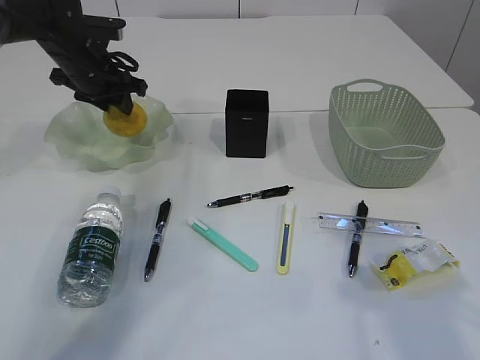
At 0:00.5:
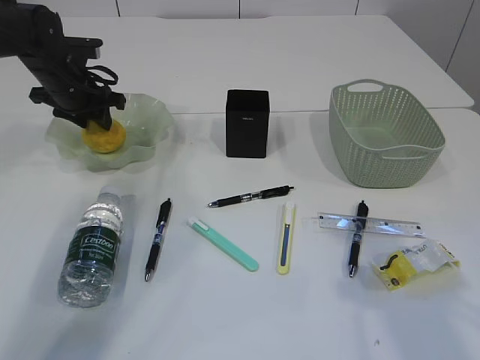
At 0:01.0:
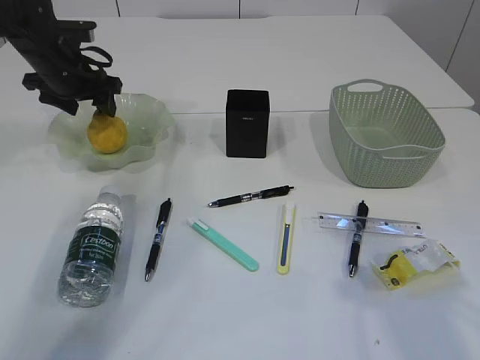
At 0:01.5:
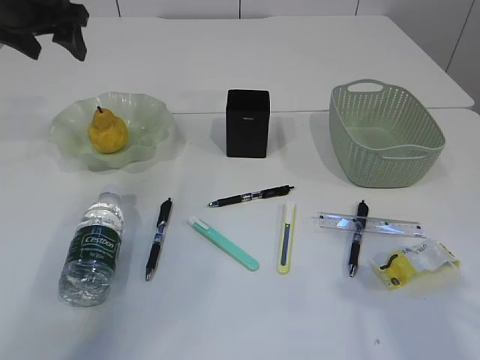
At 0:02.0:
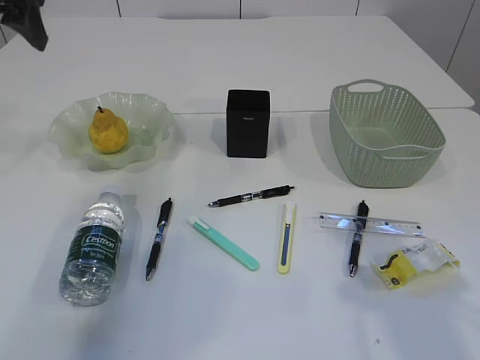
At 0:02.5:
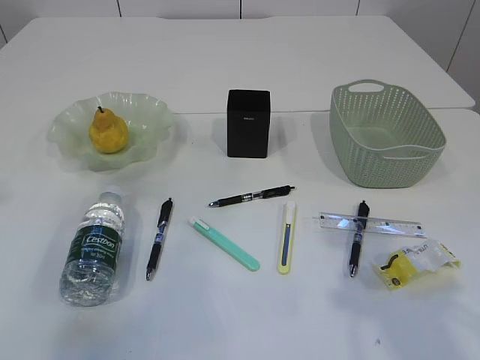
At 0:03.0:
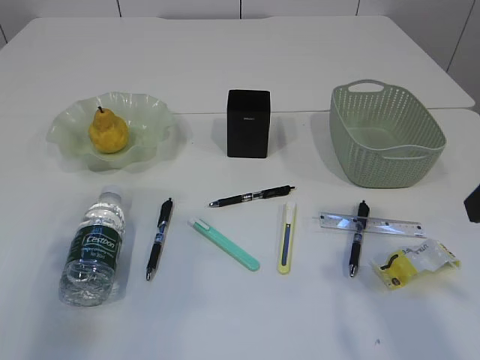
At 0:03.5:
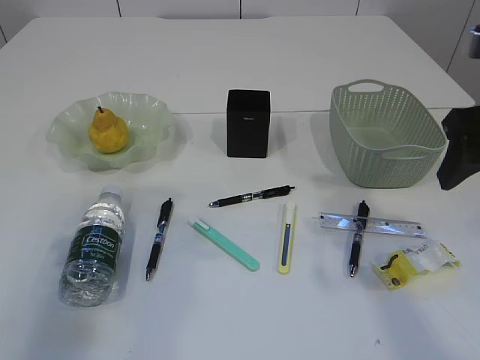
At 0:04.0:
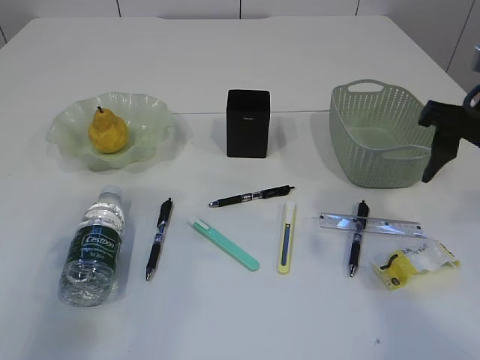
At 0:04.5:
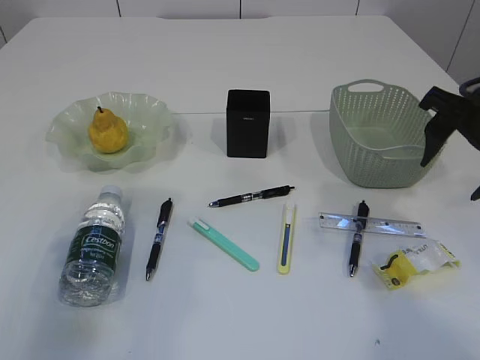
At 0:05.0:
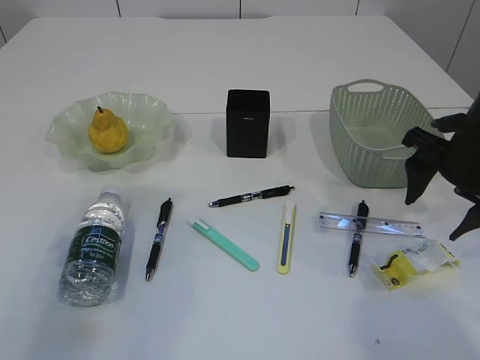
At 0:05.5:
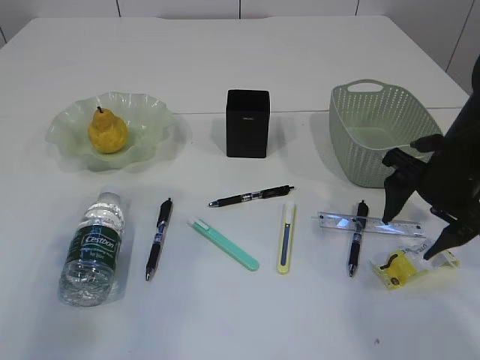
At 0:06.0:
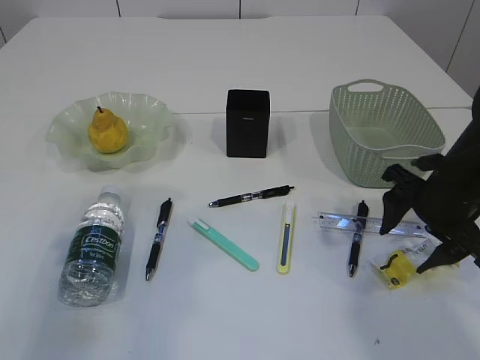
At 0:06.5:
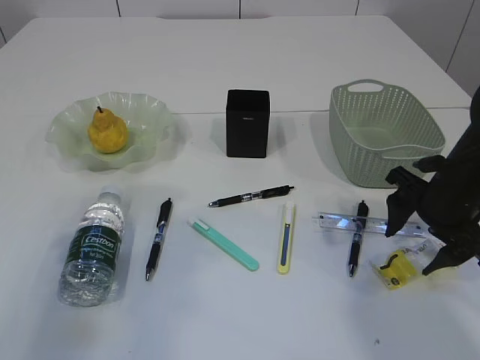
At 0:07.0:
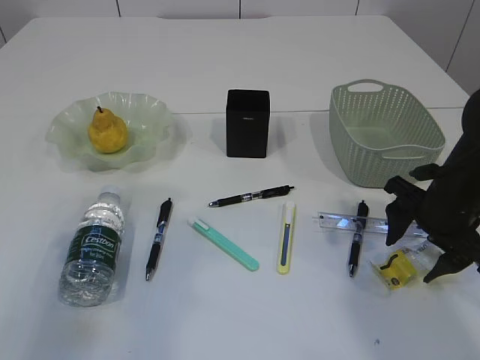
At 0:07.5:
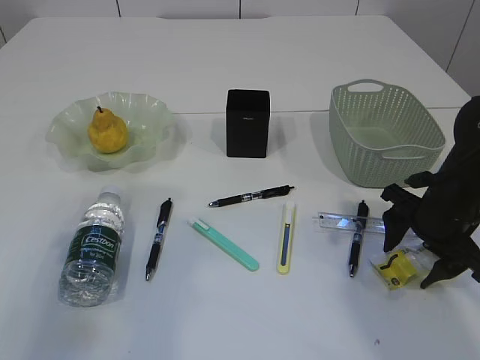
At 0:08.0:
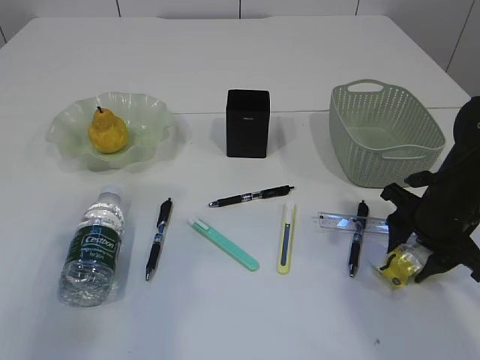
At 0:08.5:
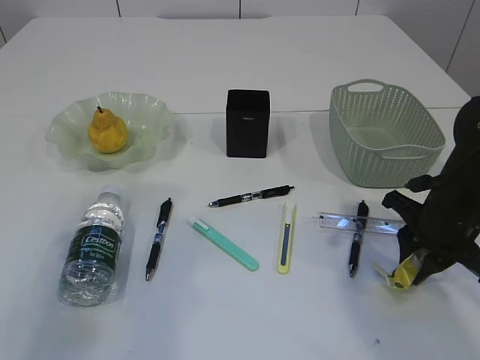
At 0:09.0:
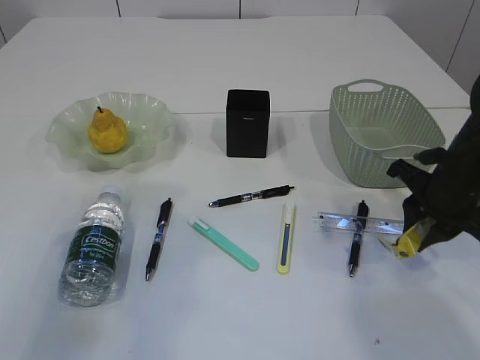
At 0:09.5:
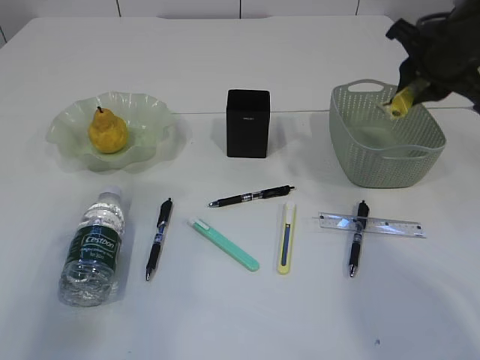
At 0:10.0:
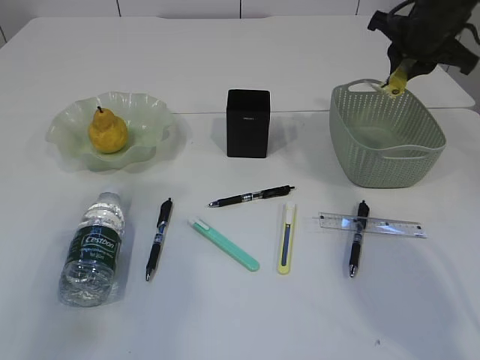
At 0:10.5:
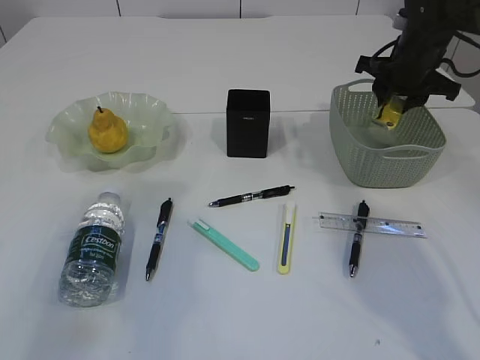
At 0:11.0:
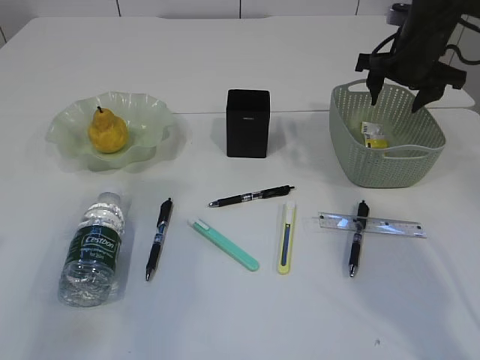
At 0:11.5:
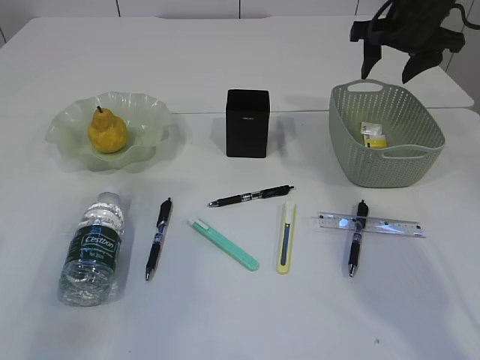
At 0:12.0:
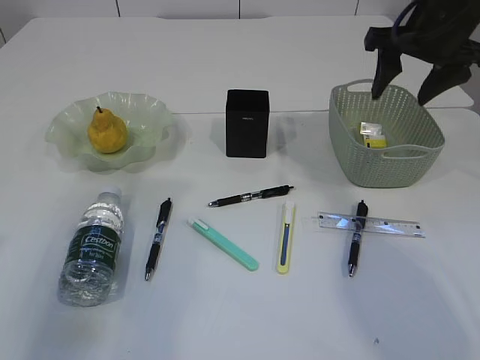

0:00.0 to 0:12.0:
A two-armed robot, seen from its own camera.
Step, 0:01.5 to 0:09.0: Pick up the waste paper.
0:00.0 to 0:02.0: The left gripper heads upward and backward, covering roughly 20 cm, and opens its fingers.
0:02.0 to 0:04.0: The left gripper moves backward and downward, approximately 20 cm; the right gripper moves forward, some 15 cm.
0:04.0 to 0:06.0: The right gripper is displaced downward by roughly 10 cm.
0:06.0 to 0:08.0: There are only small adjustments of the grippers.
0:08.0 to 0:10.0: The right gripper travels forward and upward by approximately 20 cm, and closes up.
0:10.0 to 0:12.0: The right gripper is displaced backward by roughly 5 cm, travels downward and back again, some 5 cm each way, and opens.

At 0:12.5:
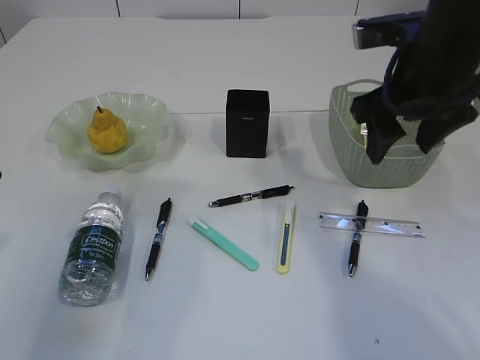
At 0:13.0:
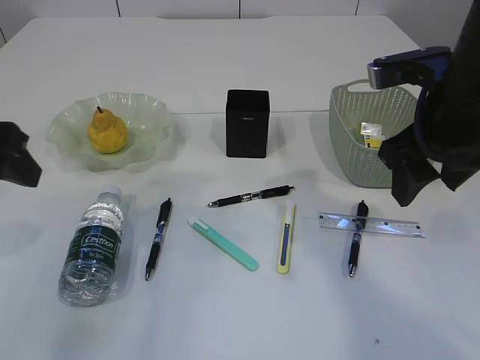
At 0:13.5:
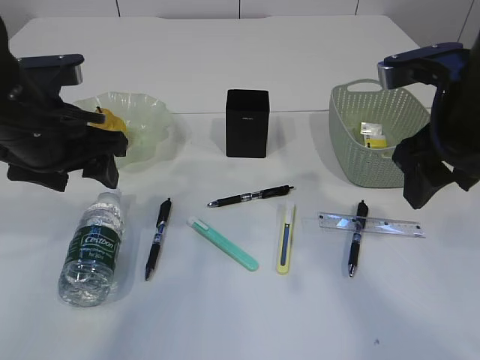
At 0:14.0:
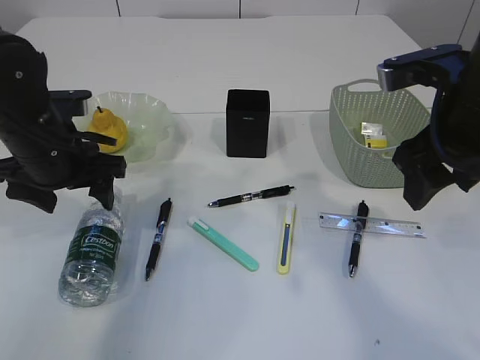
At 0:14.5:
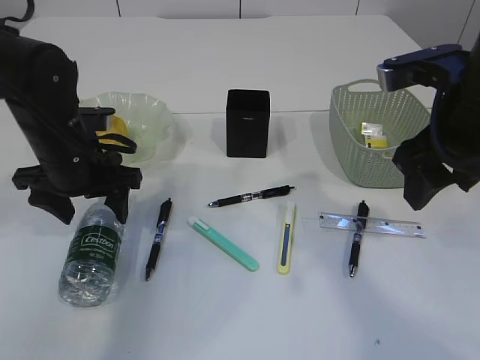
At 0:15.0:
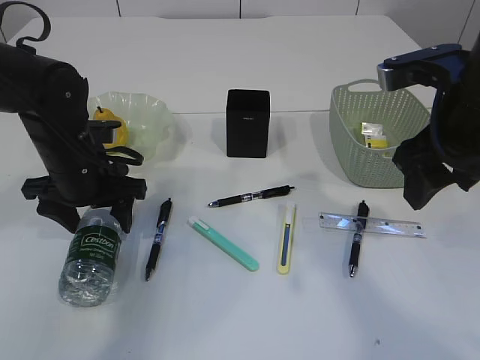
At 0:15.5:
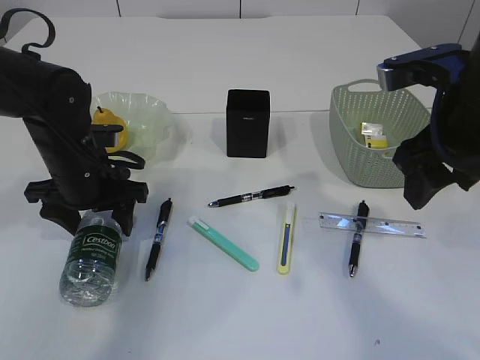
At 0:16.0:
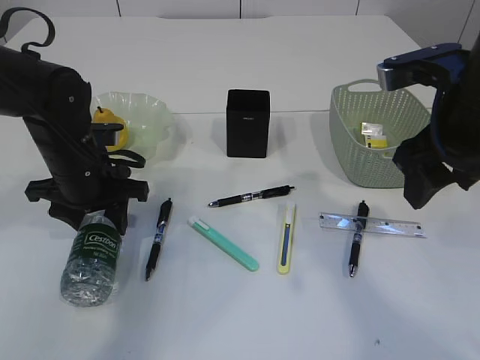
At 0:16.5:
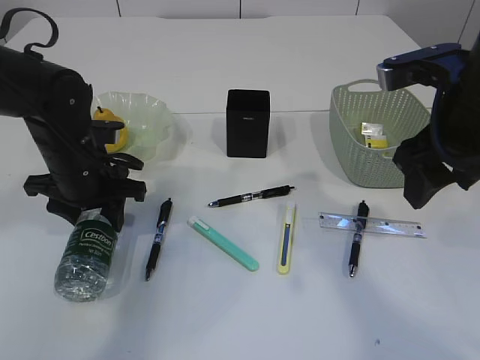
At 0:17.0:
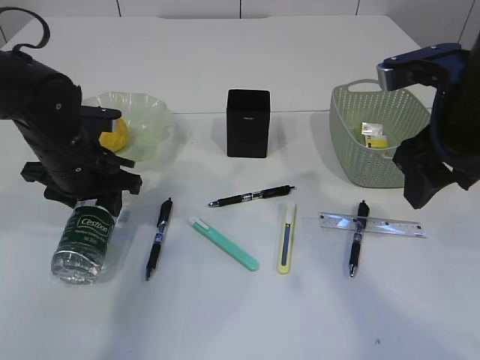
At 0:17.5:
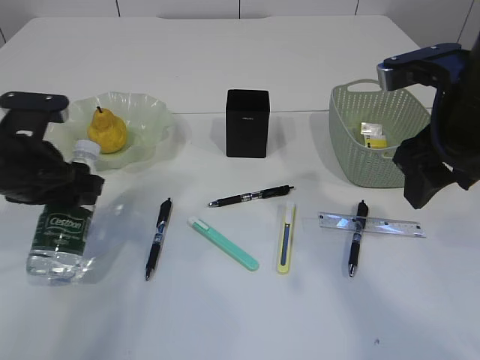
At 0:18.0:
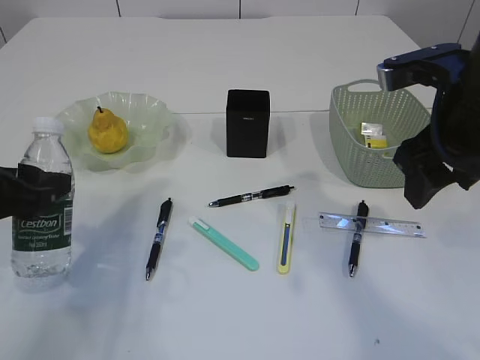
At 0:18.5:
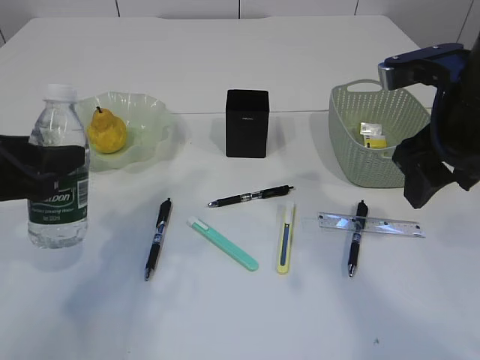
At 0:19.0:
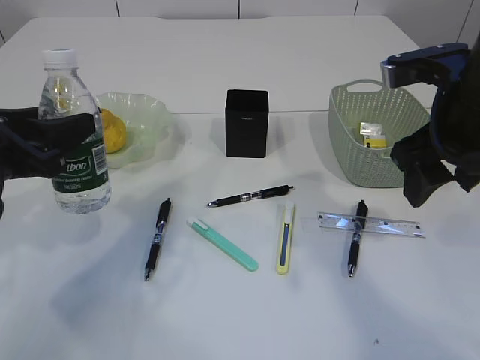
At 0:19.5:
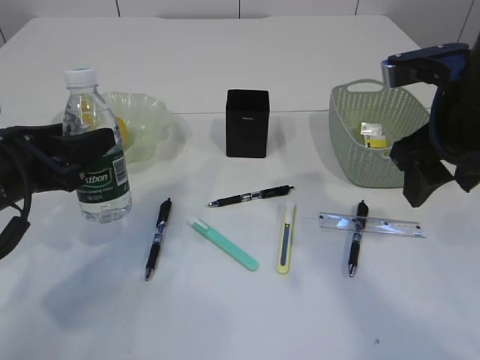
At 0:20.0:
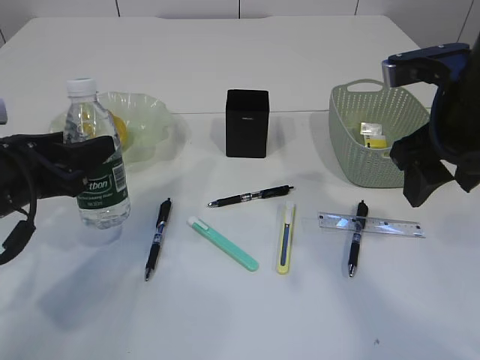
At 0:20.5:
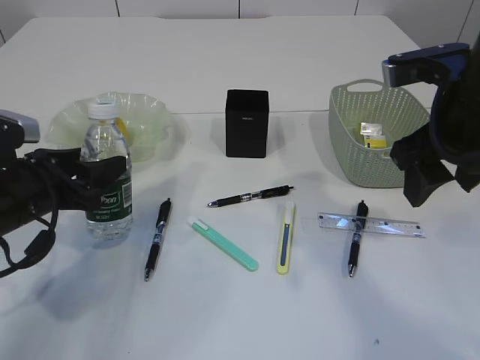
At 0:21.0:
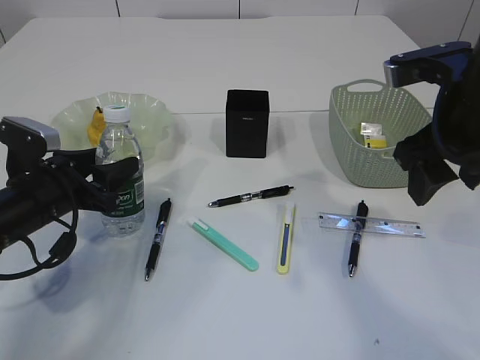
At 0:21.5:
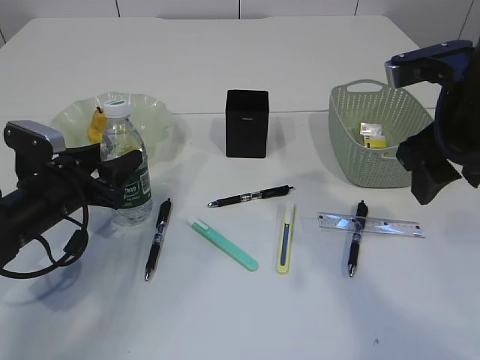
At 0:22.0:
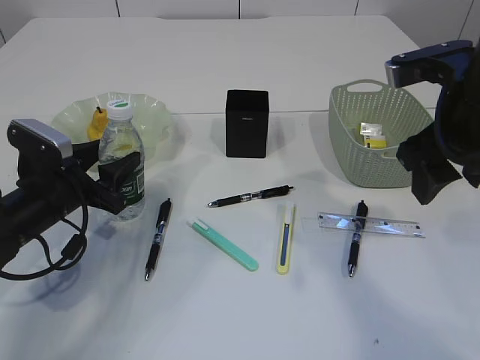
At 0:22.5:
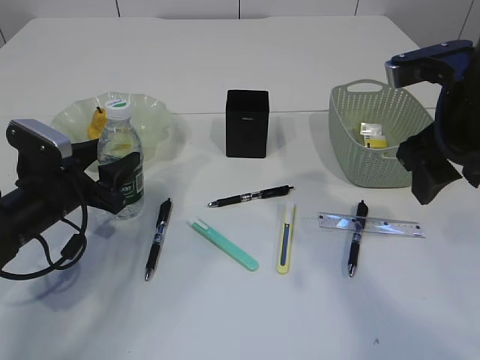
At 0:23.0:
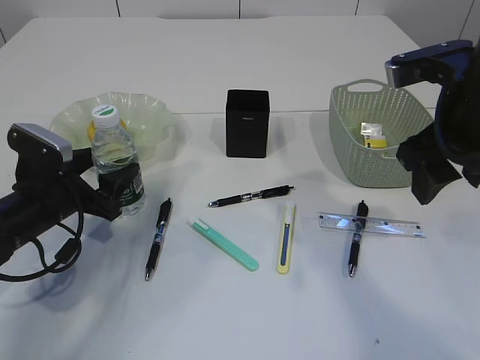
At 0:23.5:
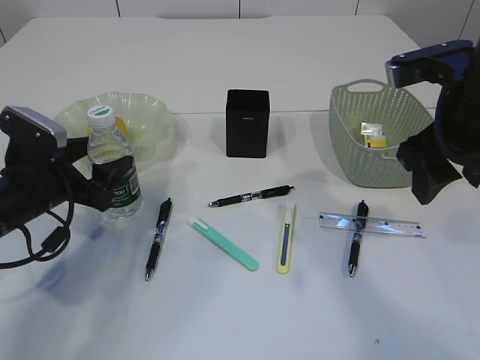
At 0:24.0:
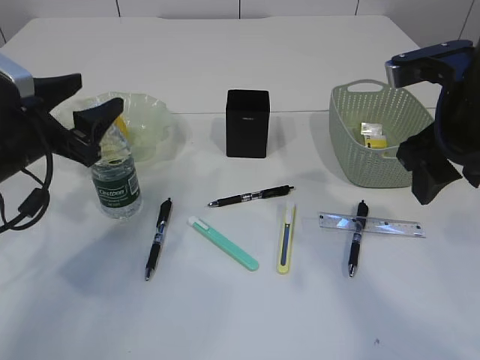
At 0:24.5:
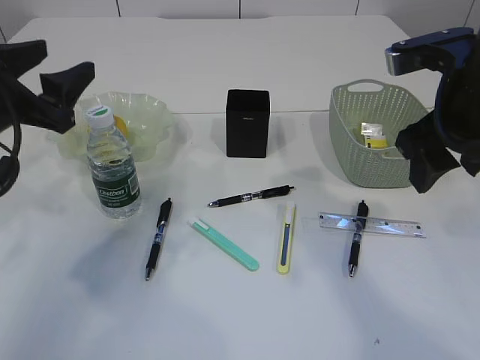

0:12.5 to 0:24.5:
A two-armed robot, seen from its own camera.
Step, 0:12.5 to 0:18.0: Pick up the bottle with the left arm.
Step, 0:18.5 to 0:24.5: Place the bottle.
0:12.5 to 0:14.5: The right gripper is displaced backward by roughly 5 cm. Meanwhile the left gripper is displaced downward, forward and to the right by roughly 20 cm.
0:14.5 to 0:16.5: The left gripper closes.
0:16.5 to 0:18.5: The left gripper shifts about 15 cm backward, upward and to the left.
0:18.5 to 0:20.5: The left gripper is displaced downward by some 5 cm.
0:20.5 to 0:22.5: The left gripper moves about 5 cm.
0:22.5 to 0:24.5: The left gripper heads upward, covering roughly 15 cm.

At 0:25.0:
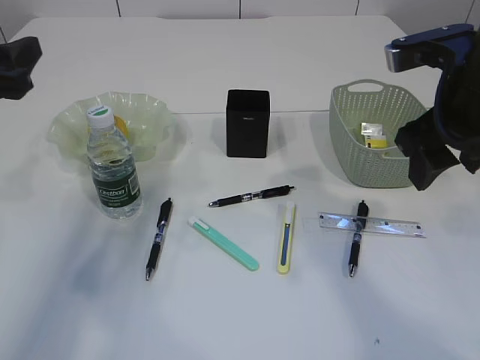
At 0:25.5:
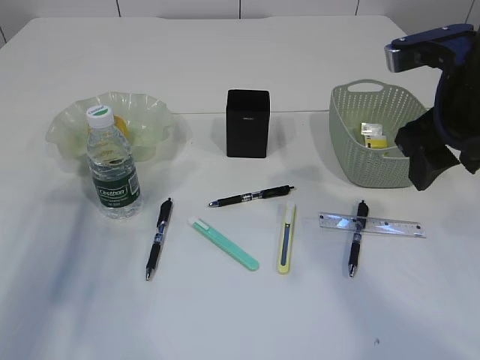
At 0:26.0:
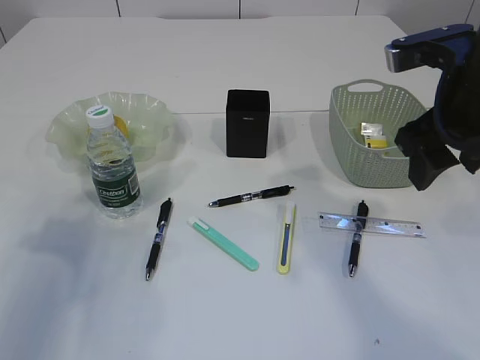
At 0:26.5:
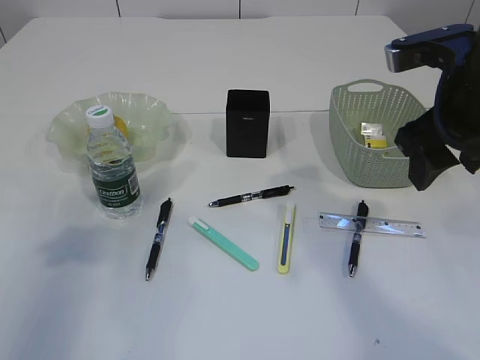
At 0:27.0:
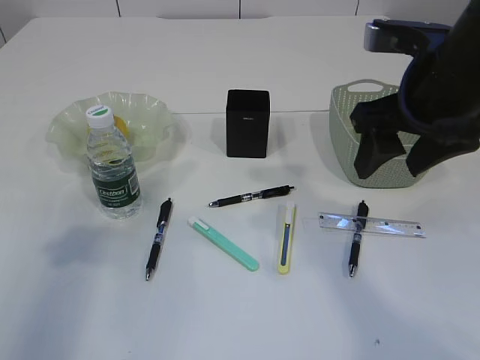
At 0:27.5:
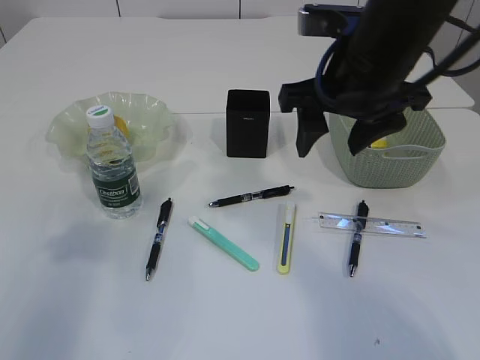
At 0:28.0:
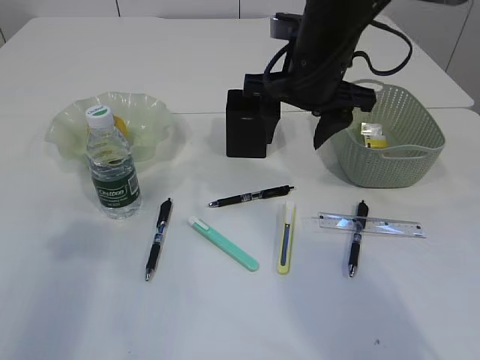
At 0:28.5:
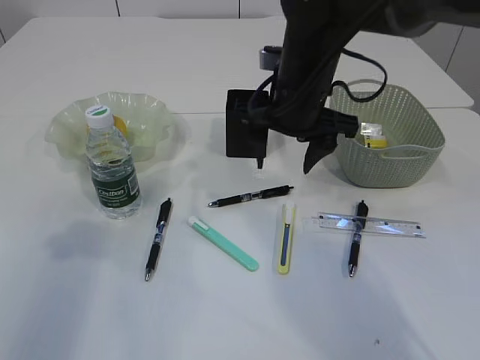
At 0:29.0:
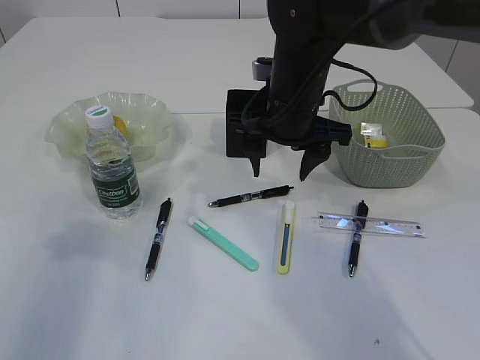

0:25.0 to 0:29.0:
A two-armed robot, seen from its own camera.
0:25.0 to 0:27.0: The left gripper shifts about 10 cm backward and upward.
0:27.0 to 0:29.0: The right gripper heads to the left, forward and downward, covering roughly 15 cm.
